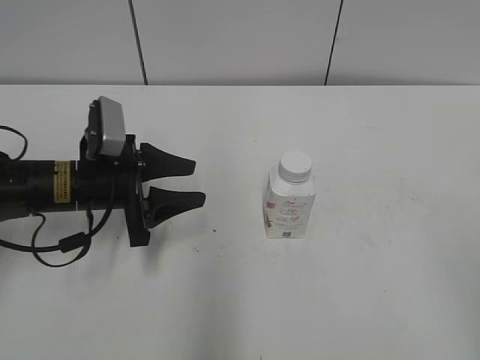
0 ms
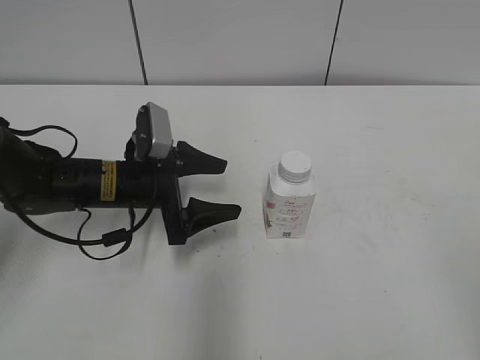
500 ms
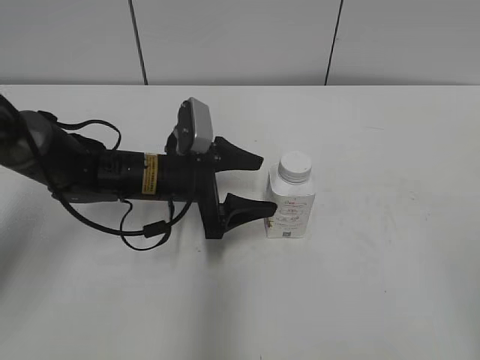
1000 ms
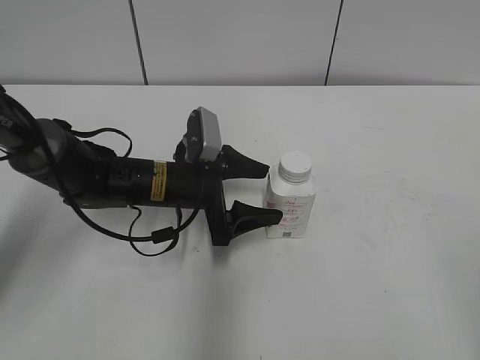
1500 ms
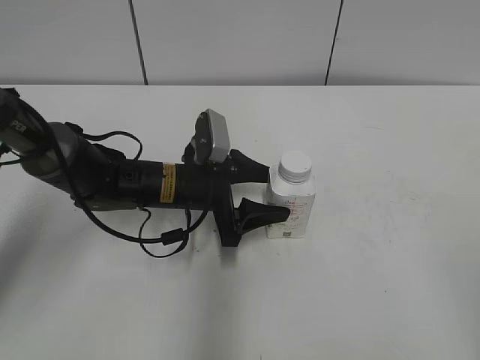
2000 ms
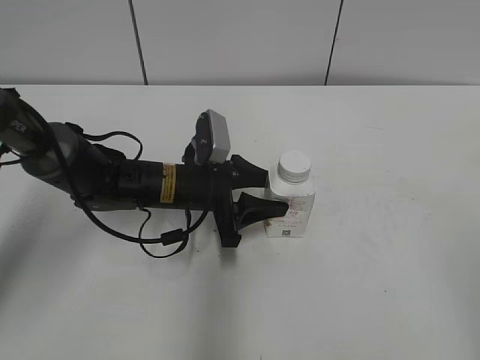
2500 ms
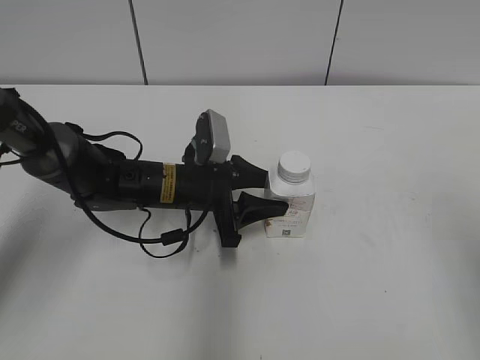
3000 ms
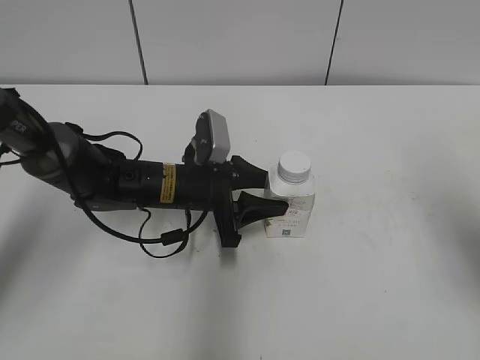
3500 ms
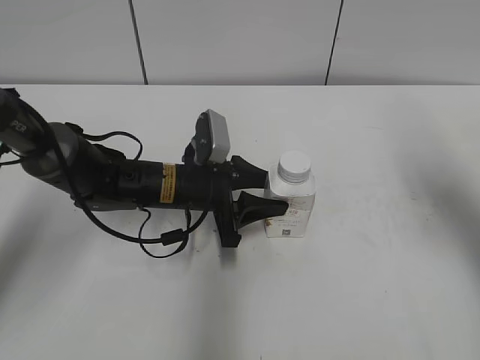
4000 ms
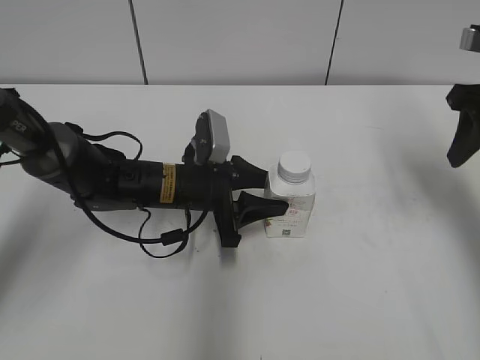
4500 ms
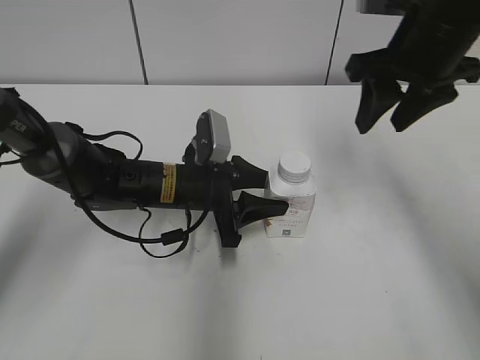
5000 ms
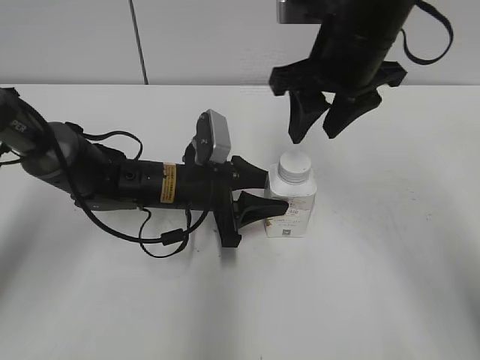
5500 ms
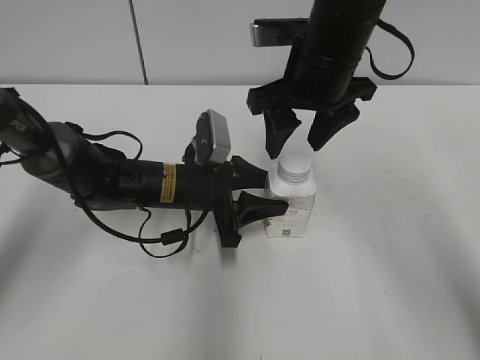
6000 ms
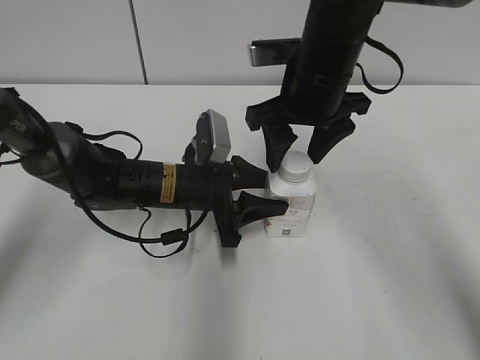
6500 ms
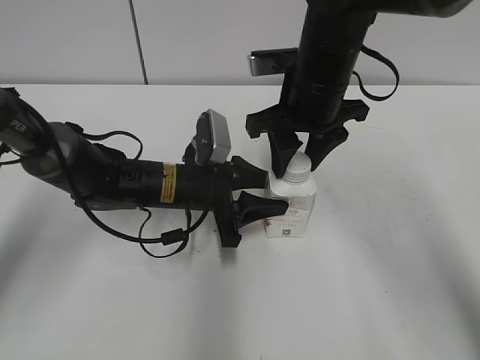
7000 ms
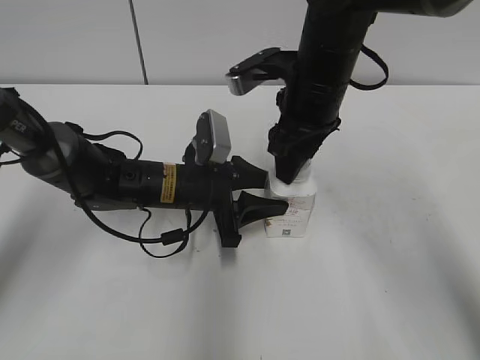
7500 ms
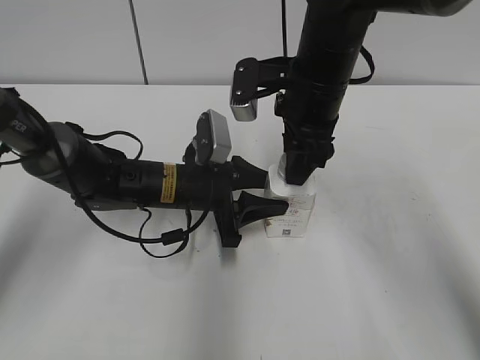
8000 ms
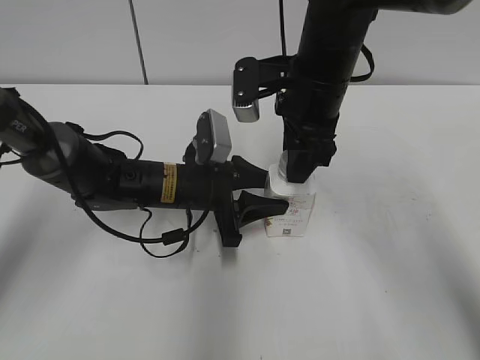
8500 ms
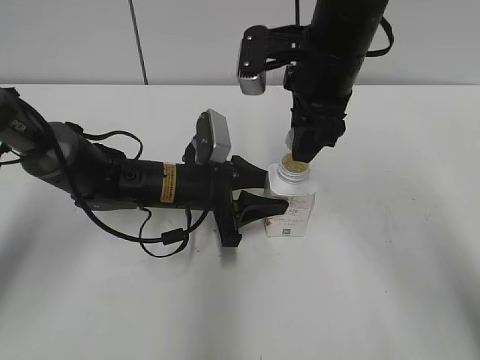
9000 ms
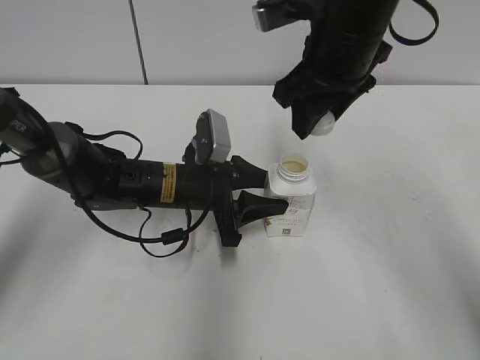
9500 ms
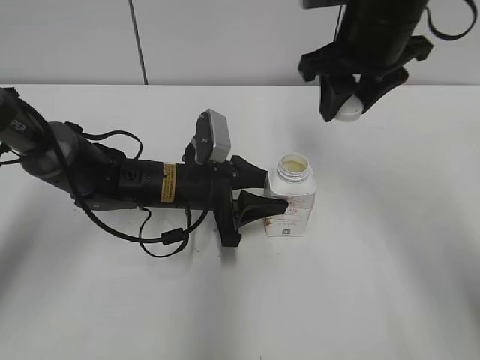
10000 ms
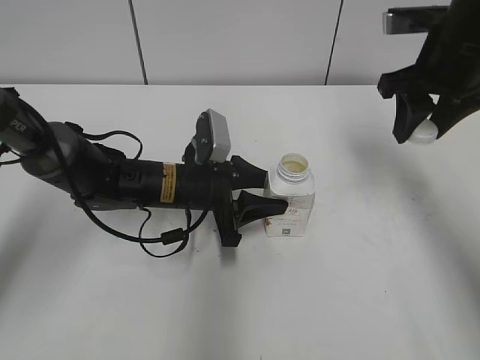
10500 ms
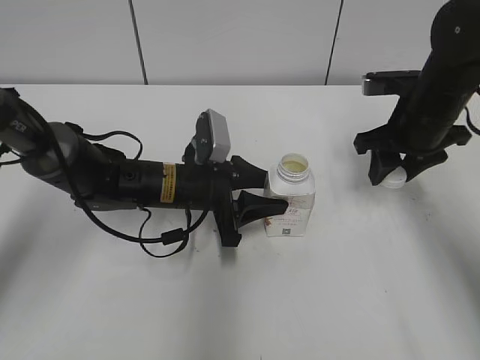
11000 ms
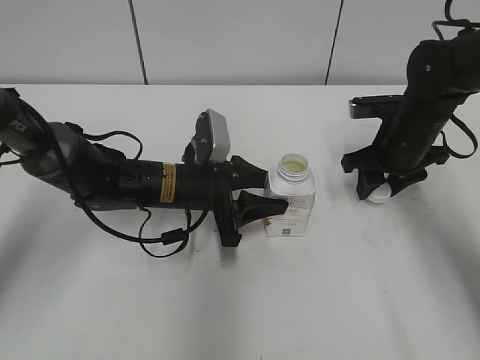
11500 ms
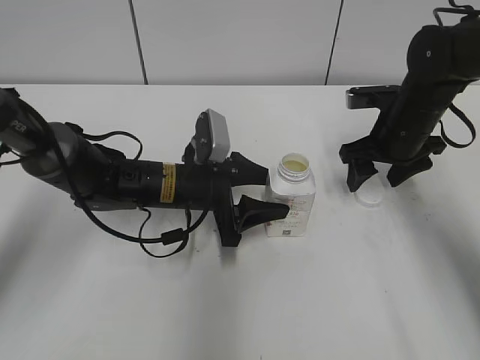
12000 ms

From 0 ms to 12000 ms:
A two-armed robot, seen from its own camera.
Step, from 0 ms to 2000 ms: Grab the Yili Changqing with the left hand.
From 0 ms to 2000 ms: The left gripper travels to the right by about 10 cm, and opens up.
From 2000 ms to 4000 ms: The right gripper is displaced forward by approximately 25 cm, and closes. Meanwhile the left gripper closes its fingers.
From 4000 ms to 6000 ms: The right gripper shifts some 20 cm to the left, and opens up.
From 6000 ms to 8000 ms: The right gripper closes.
From 8000 ms to 10000 ms: The right gripper goes some 5 cm upward.
From 10000 ms to 12000 ms: The right gripper travels downward and to the right by some 15 cm, and opens its fingers.

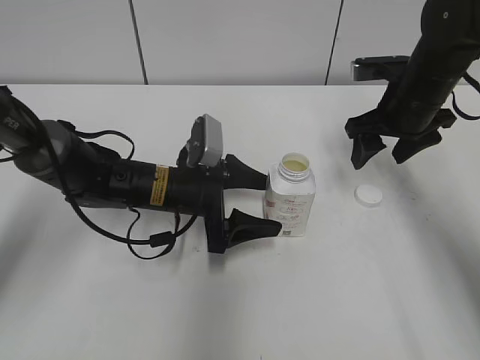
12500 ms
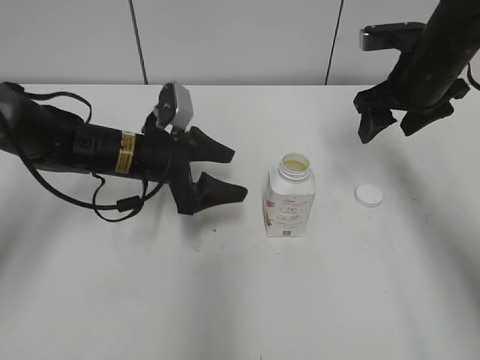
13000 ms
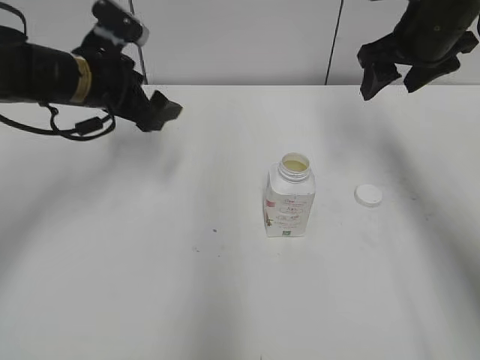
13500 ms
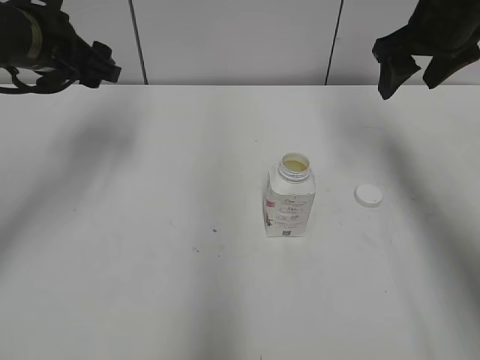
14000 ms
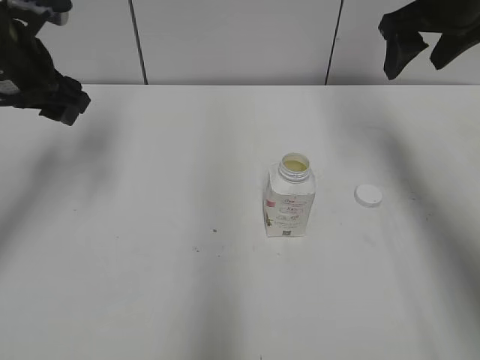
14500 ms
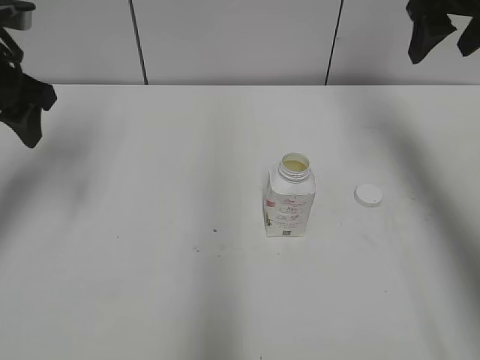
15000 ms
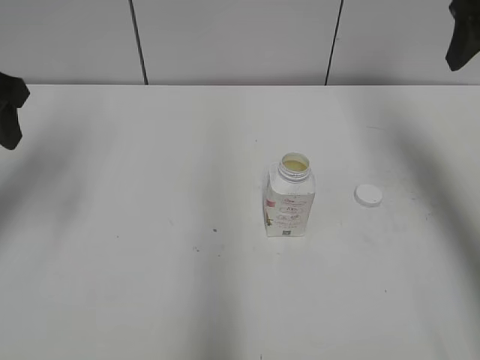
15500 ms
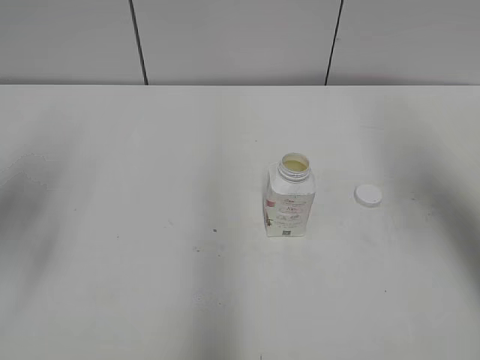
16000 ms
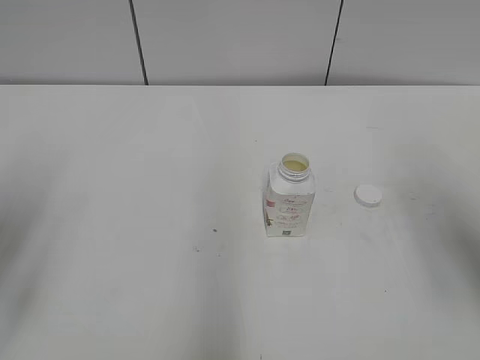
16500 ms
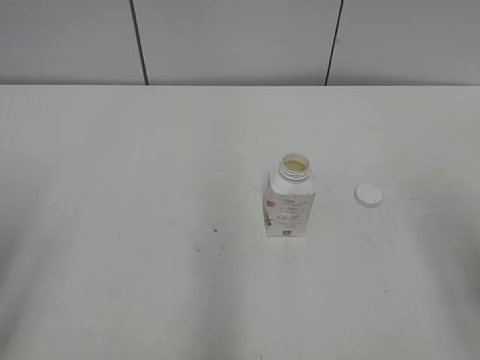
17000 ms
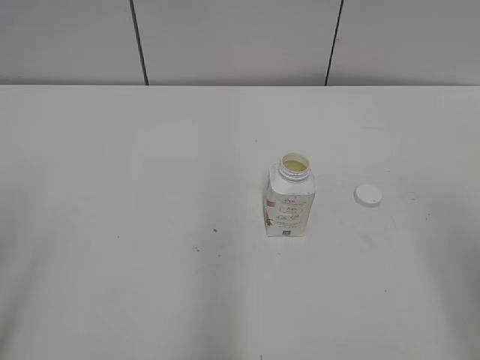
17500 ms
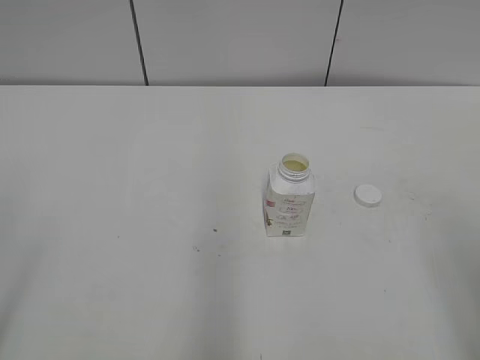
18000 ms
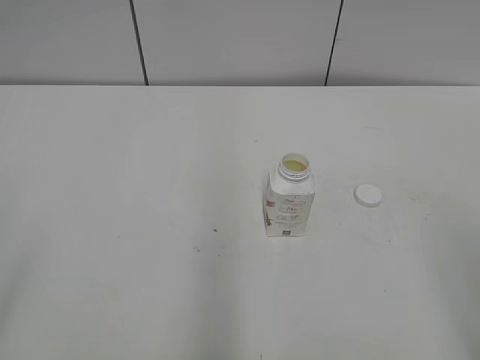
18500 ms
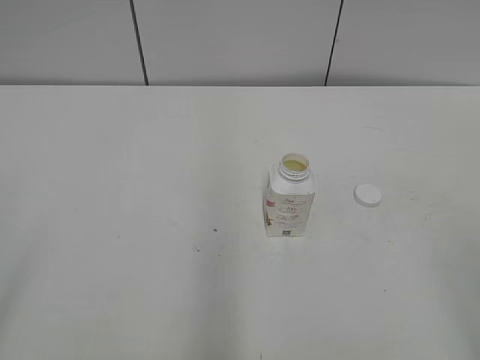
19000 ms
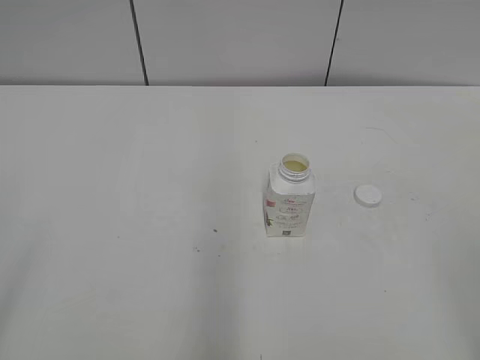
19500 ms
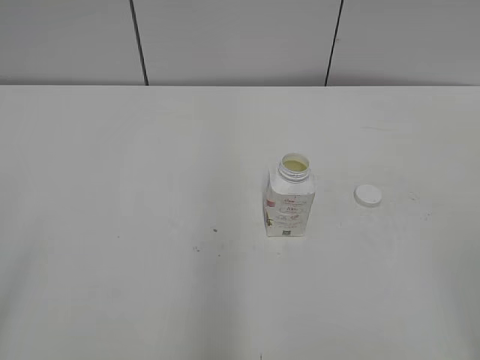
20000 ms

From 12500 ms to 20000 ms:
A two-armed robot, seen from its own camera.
From 12500 ms to 14500 ms: The left gripper shifts some 25 cm upward and to the left. Meanwhile the right gripper shifts about 15 cm upward.
From 14500 ms to 16500 ms: Both grippers travel together backward, approximately 20 cm.

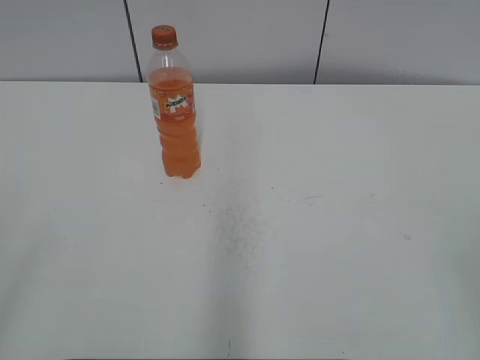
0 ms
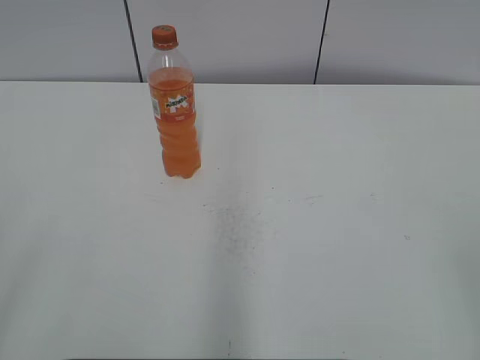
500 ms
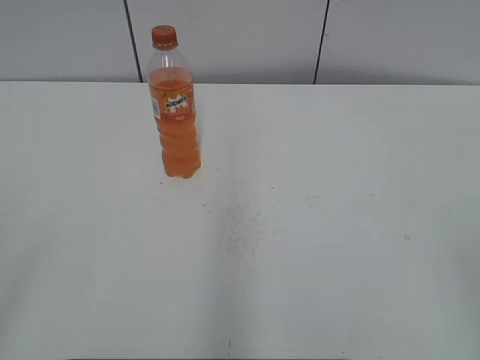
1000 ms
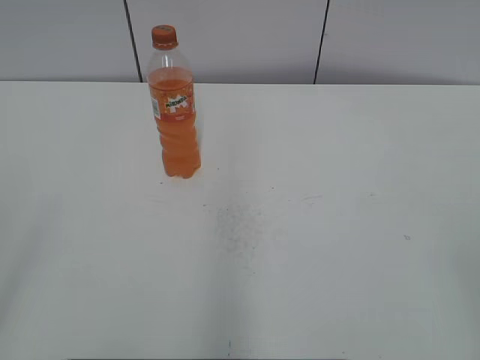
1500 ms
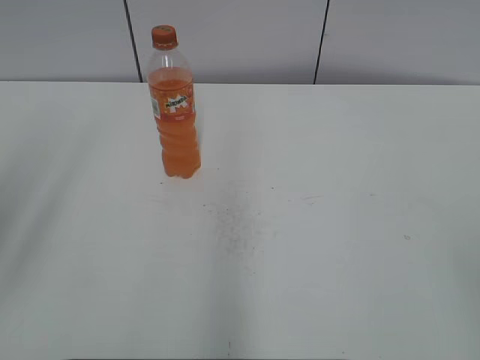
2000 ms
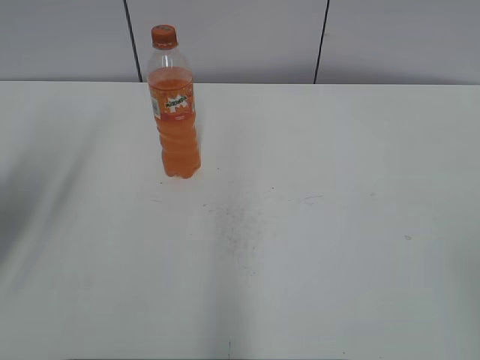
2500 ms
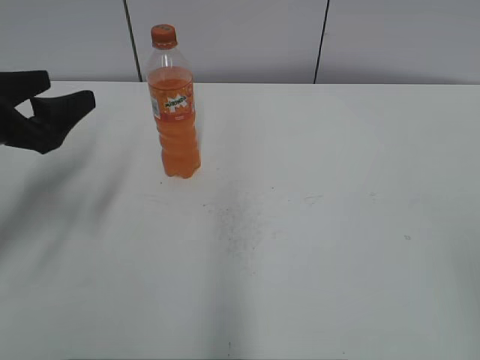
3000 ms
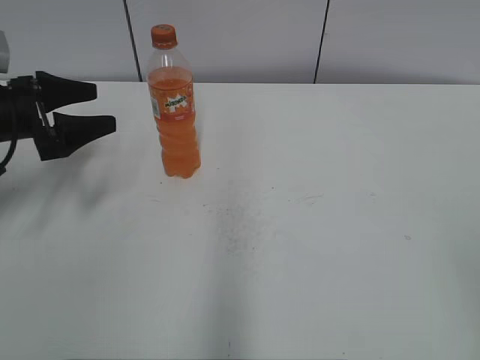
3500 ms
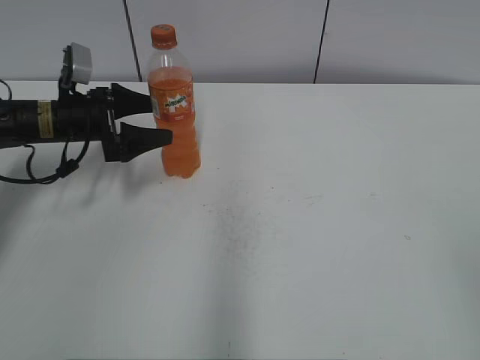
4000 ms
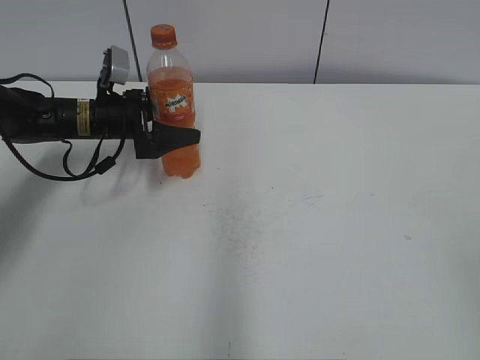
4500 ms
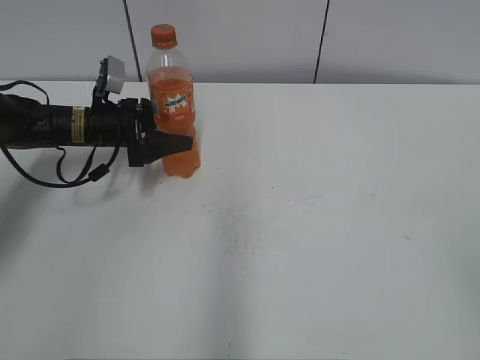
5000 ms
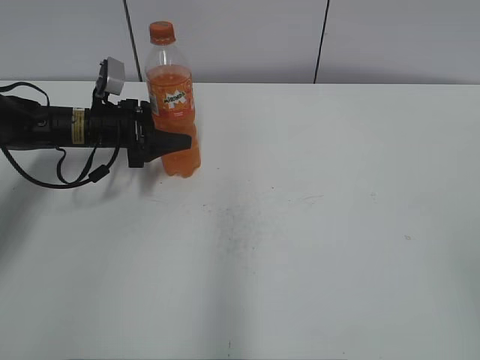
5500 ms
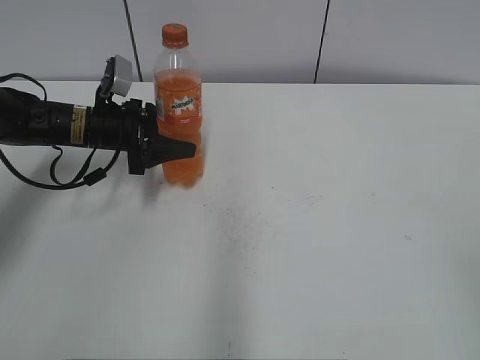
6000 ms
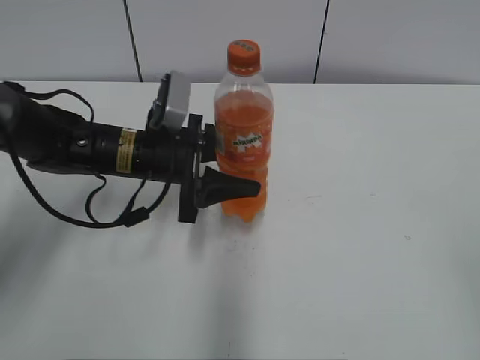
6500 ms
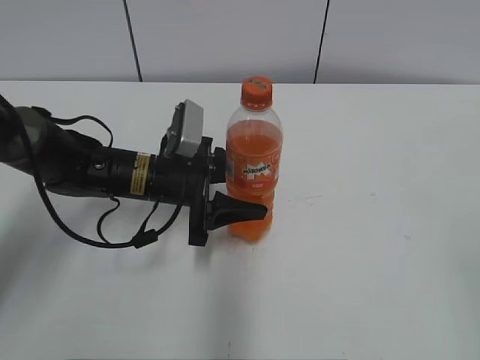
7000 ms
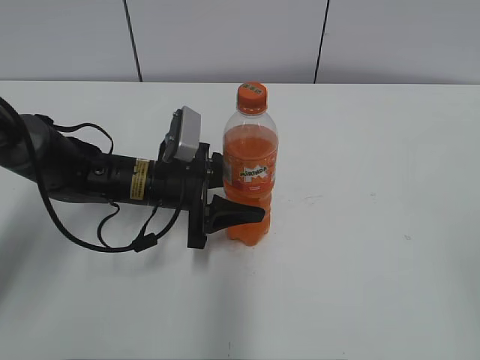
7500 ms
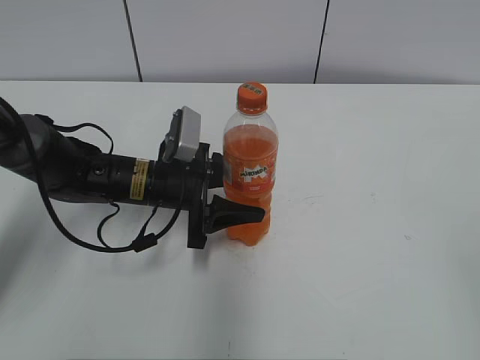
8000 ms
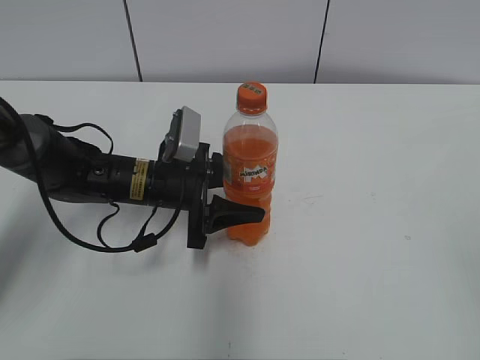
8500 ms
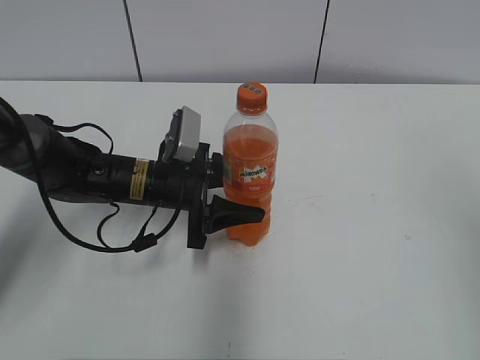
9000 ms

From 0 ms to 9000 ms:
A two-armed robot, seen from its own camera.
Step, from 0 ms to 5500 ms: Grab the Mirinda with the left hand.
Step, from 6000 ms to 8500 ms: Move the Mirinda from left to right.
From 2000 ms to 4500 ms: The left gripper shifts some 40 cm forward and downward.
From 4500 ms to 7000 ms: The left gripper heads backward and to the right, covering about 15 cm, and closes its fingers.
From 7000 ms to 9000 ms: The right gripper is displaced forward and upward by some 10 cm.
